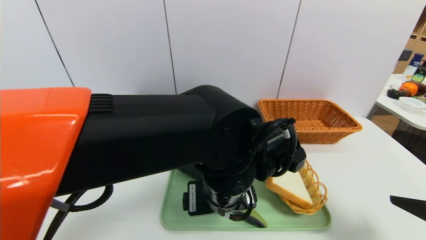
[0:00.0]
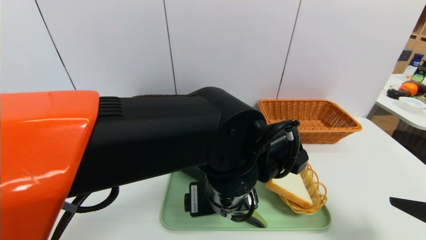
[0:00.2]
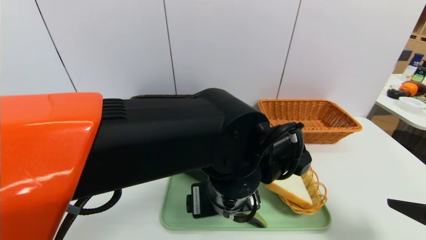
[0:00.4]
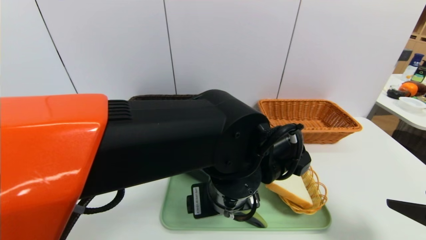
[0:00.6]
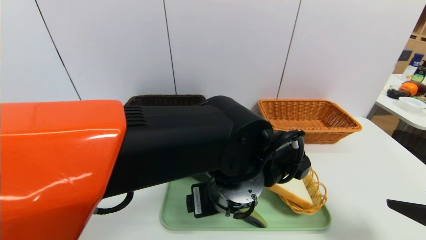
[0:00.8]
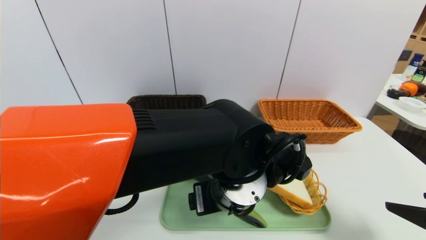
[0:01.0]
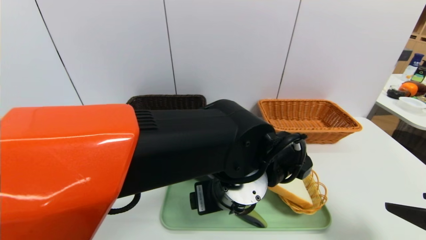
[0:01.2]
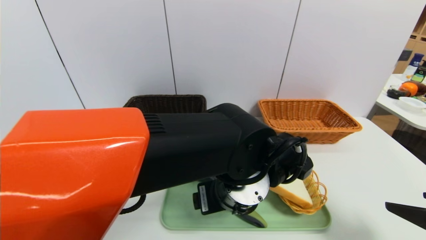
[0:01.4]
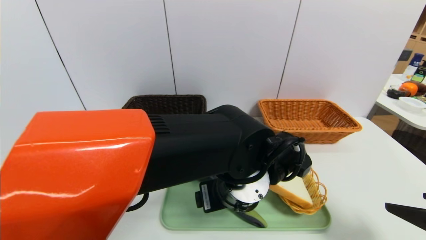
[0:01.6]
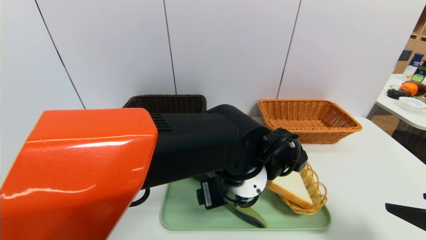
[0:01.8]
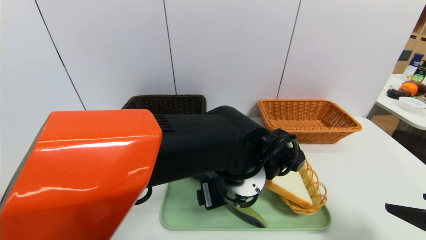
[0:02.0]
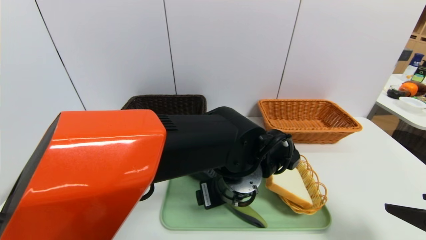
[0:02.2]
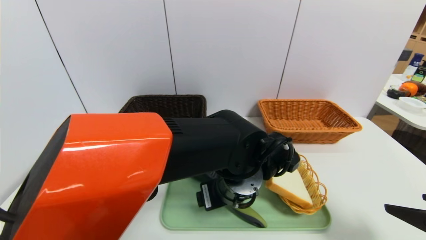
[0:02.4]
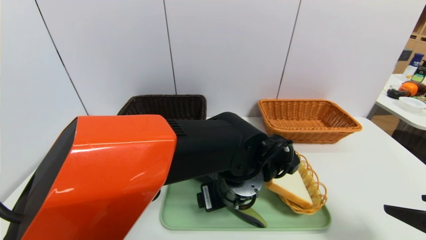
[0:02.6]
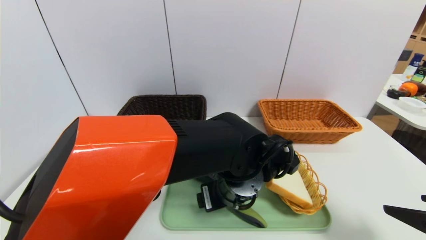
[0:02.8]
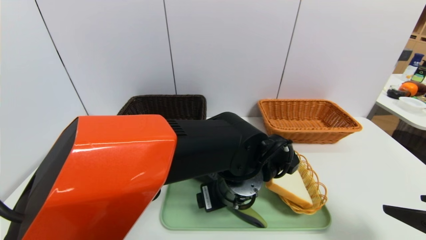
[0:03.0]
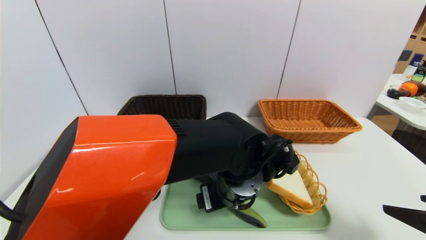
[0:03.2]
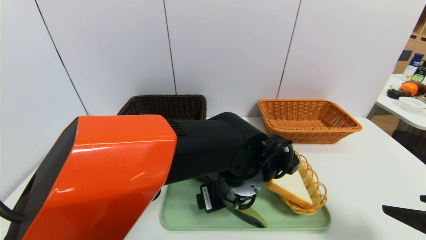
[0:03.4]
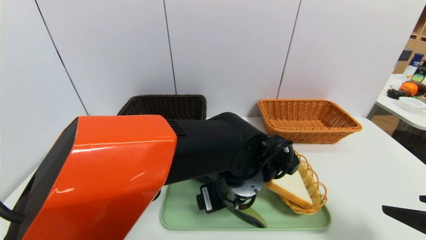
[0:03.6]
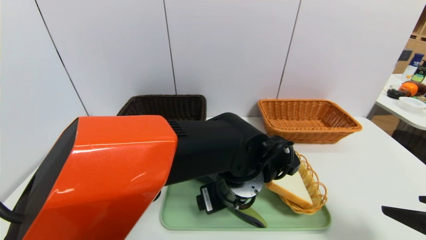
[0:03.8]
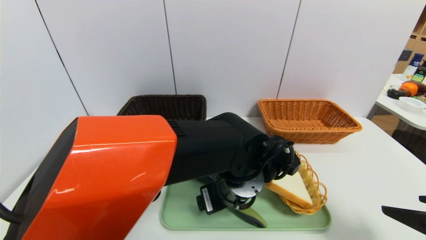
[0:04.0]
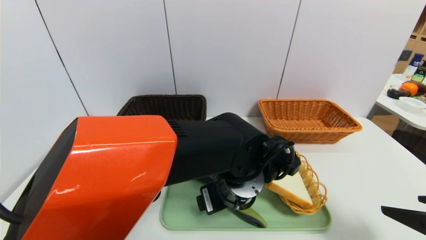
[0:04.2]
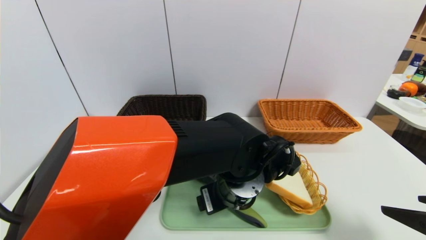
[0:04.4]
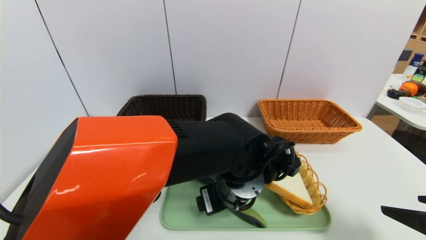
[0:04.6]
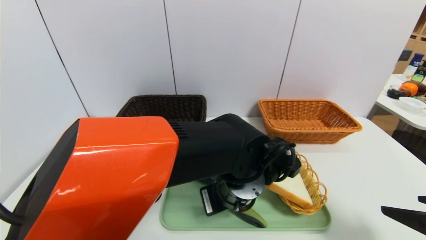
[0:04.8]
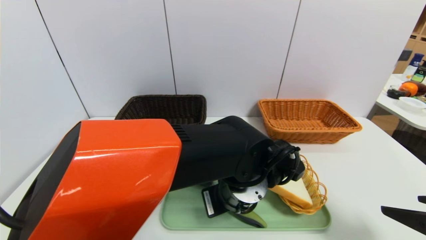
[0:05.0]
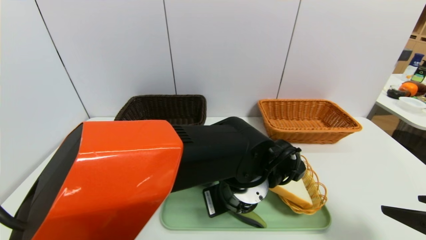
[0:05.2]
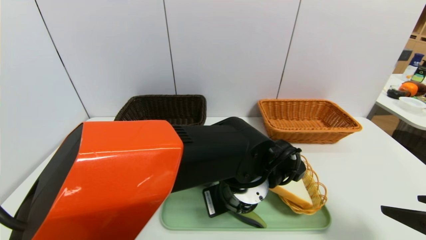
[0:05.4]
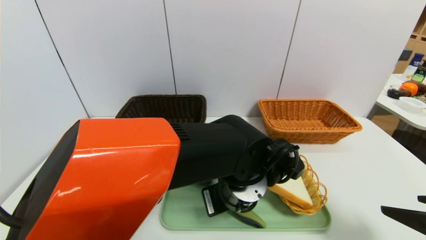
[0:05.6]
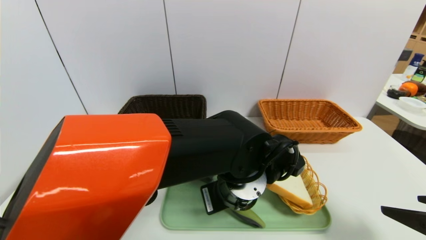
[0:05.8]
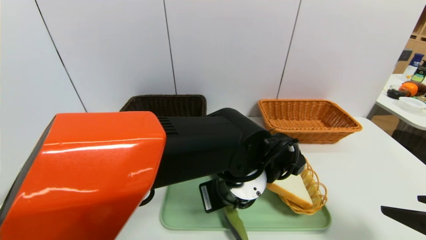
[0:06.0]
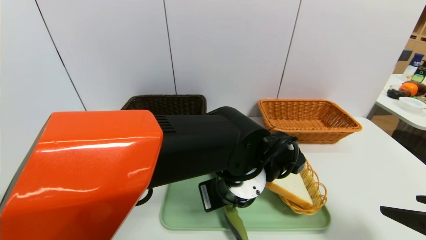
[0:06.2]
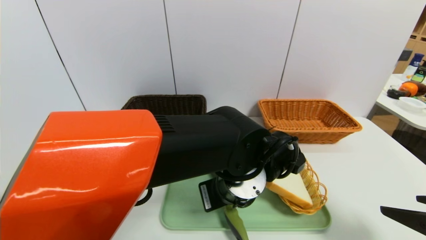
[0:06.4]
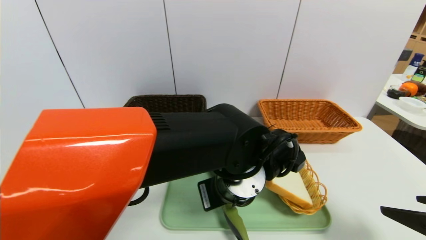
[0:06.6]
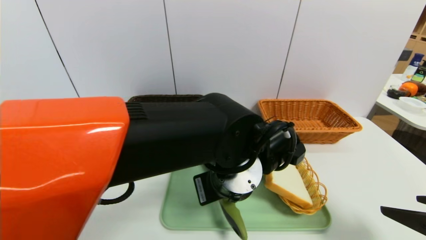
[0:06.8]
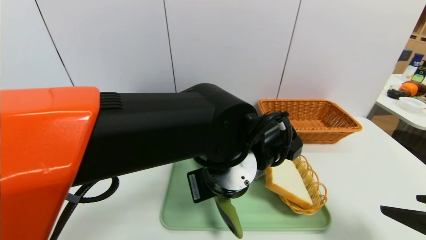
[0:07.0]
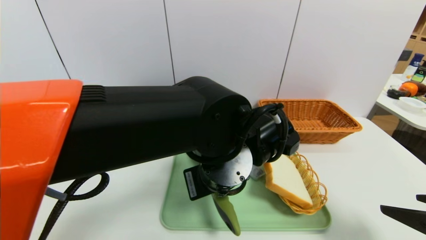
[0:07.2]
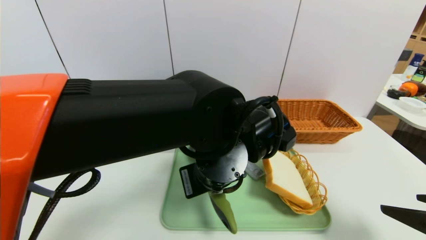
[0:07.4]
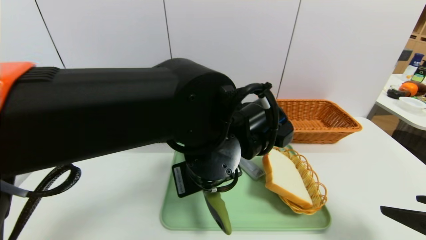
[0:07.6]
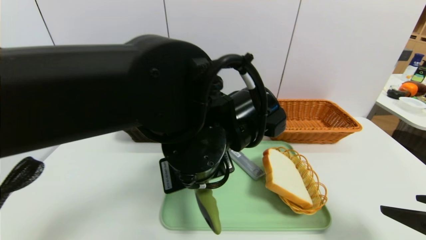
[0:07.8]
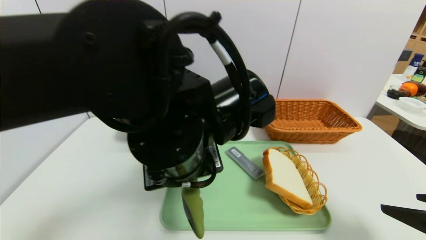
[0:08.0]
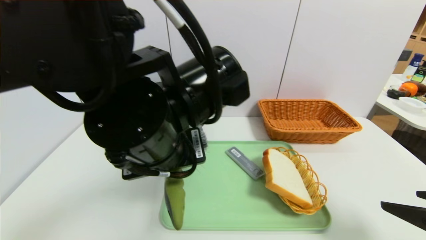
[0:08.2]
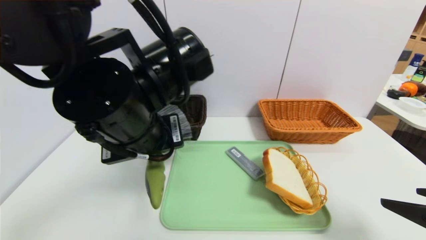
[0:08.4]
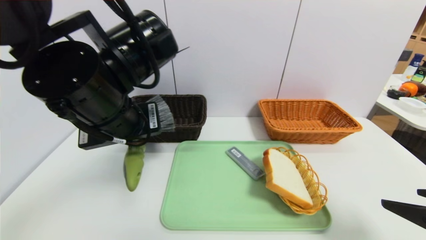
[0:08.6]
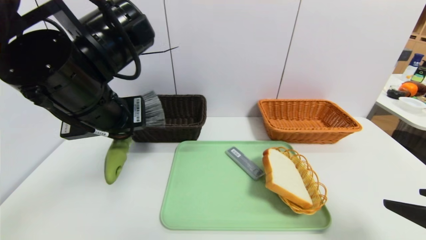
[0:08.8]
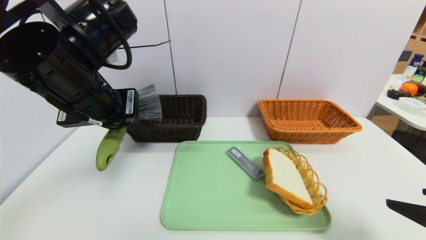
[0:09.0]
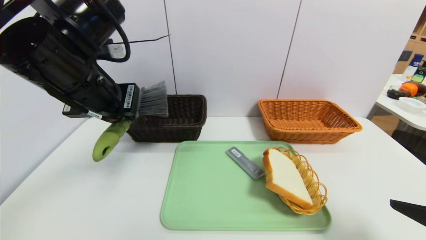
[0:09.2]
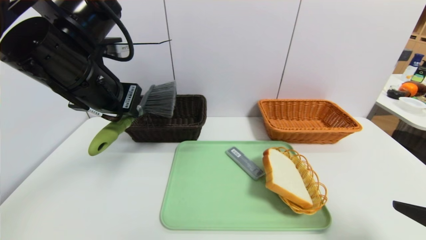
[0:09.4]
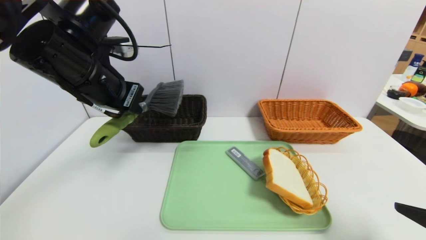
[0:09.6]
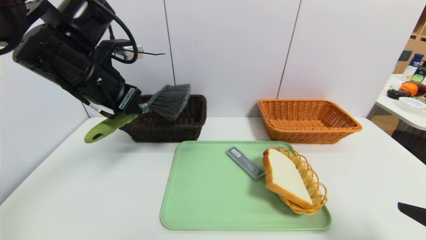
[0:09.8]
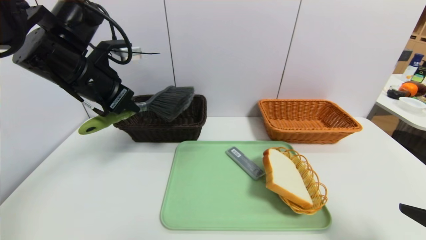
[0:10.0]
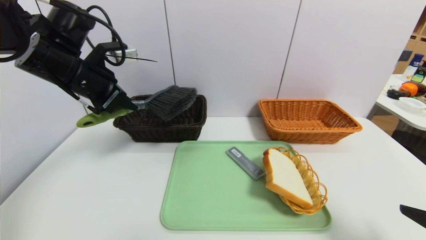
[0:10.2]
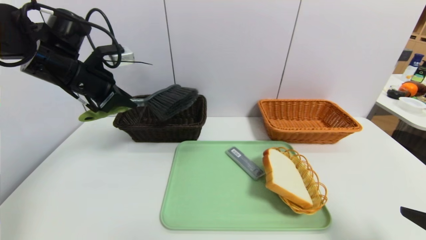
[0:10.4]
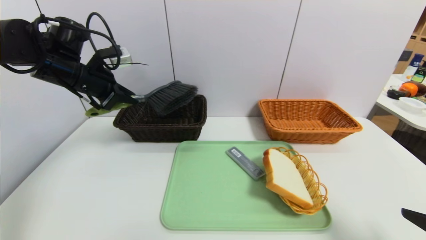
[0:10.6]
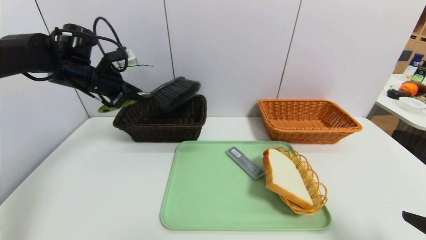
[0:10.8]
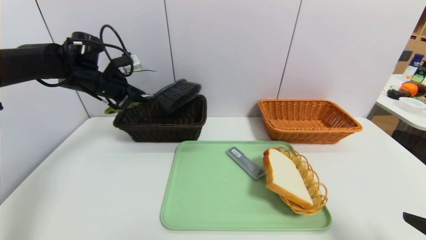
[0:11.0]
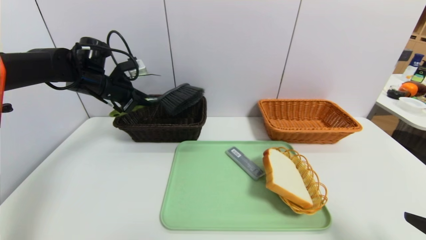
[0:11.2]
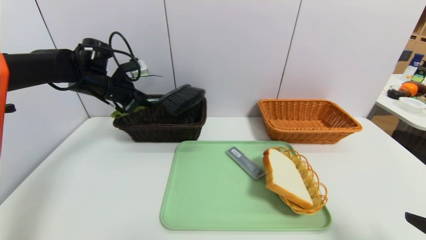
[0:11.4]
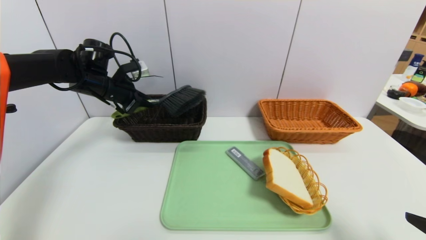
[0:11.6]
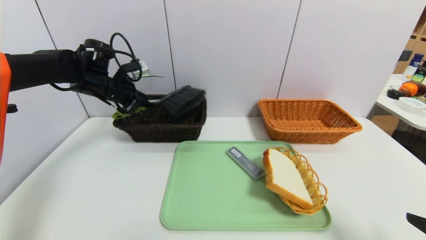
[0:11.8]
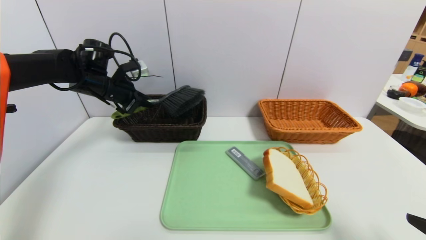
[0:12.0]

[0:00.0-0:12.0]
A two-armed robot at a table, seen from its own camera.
Task of the whole recording: place the food in the right basket with the right gripper, and place the non food items in the left basket with the left gripper.
0:01.6 to 0:03.0: The grippers make only small movements.
0:03.0 to 0:04.4: The two grippers keep their place.
0:04.4 to 0:06.0: The left gripper closes.
0:06.0 to 0:07.6: The left gripper shifts roughly 5 cm upward.
0:07.6 to 0:09.0: The left gripper moves to the left and upward, roughly 20 cm.
0:09.0 to 0:10.4: The left gripper goes approximately 15 cm forward and to the left.
0:10.4 to 0:12.0: The left gripper shifts about 10 cm forward and downward.

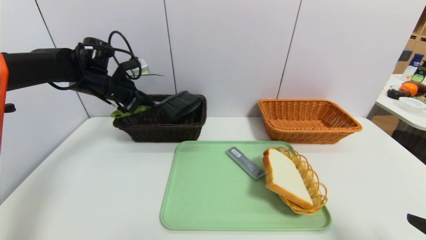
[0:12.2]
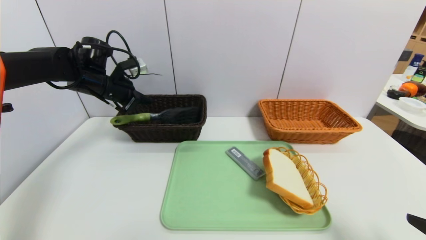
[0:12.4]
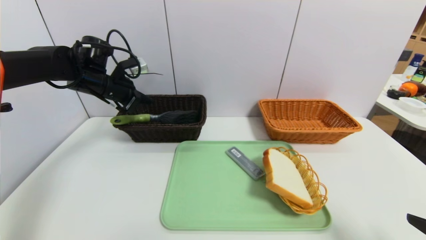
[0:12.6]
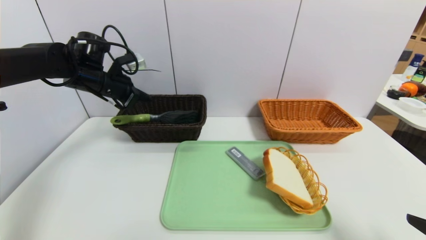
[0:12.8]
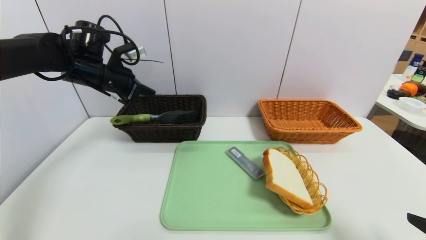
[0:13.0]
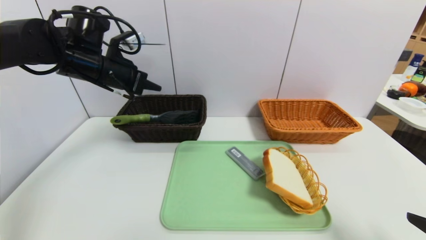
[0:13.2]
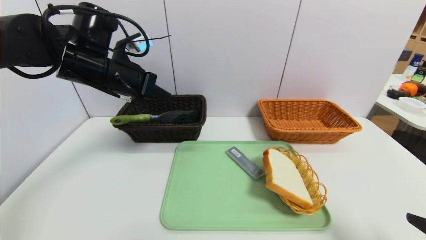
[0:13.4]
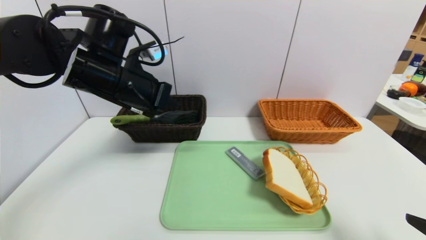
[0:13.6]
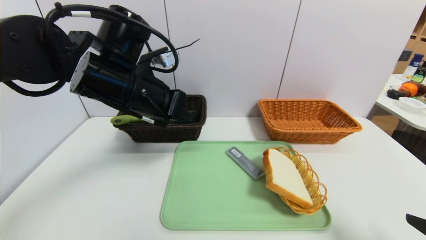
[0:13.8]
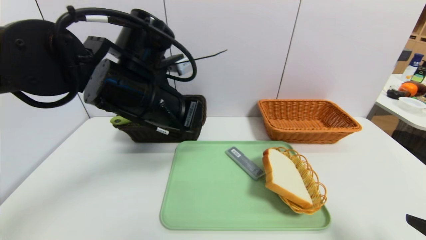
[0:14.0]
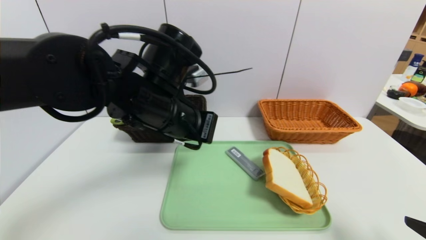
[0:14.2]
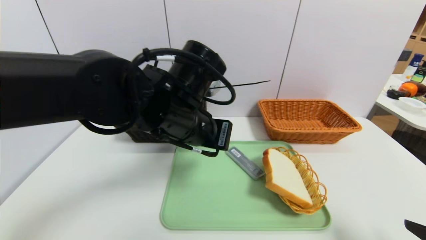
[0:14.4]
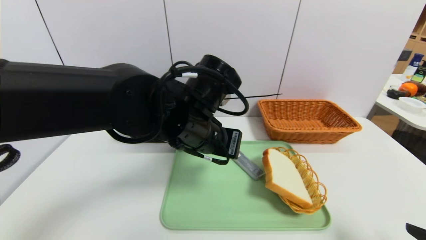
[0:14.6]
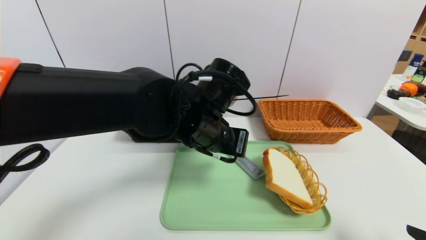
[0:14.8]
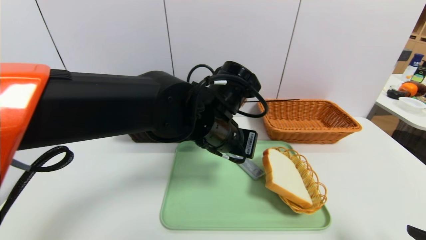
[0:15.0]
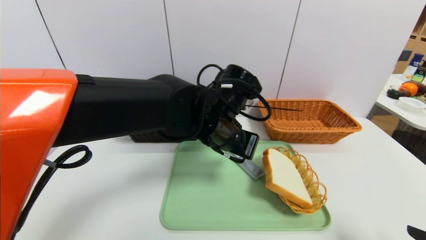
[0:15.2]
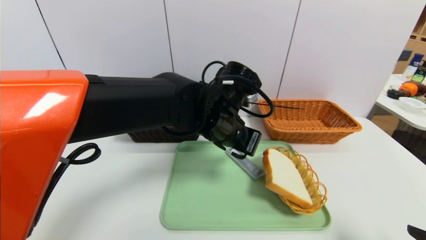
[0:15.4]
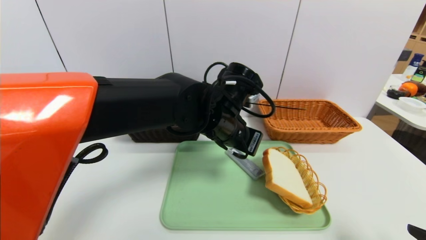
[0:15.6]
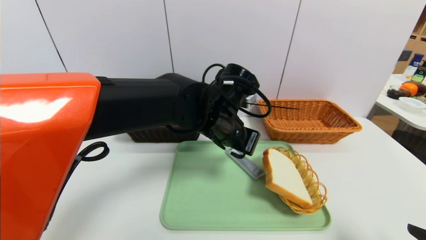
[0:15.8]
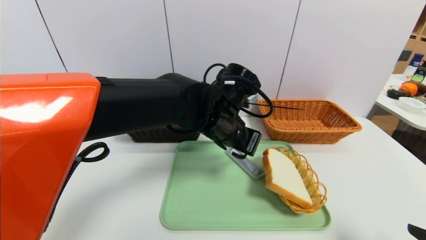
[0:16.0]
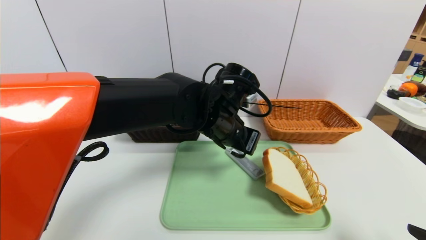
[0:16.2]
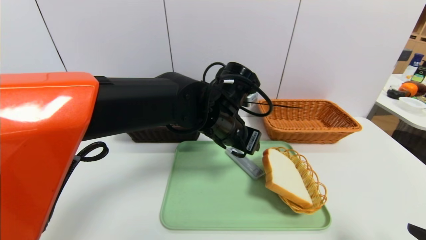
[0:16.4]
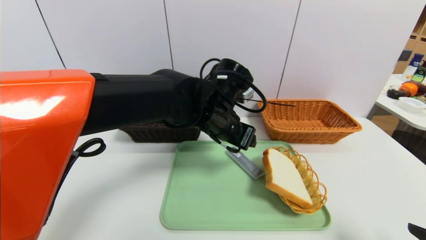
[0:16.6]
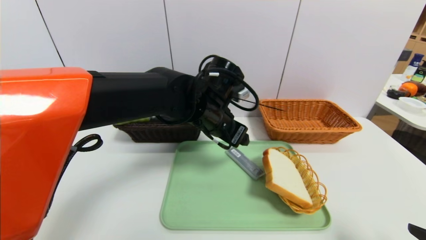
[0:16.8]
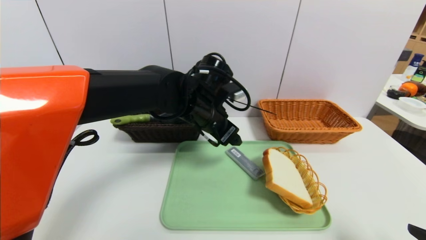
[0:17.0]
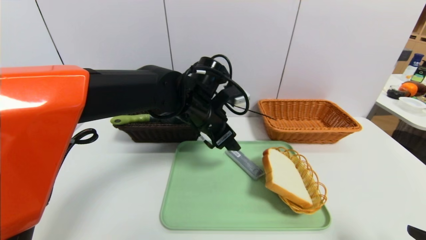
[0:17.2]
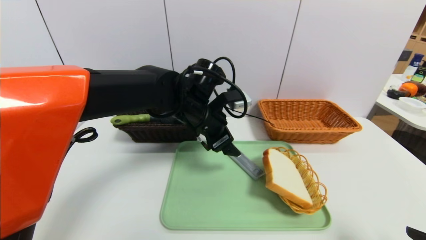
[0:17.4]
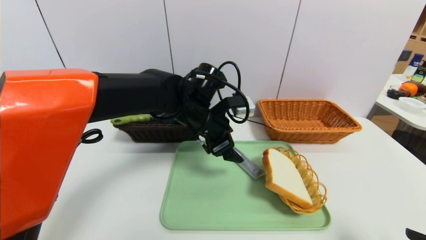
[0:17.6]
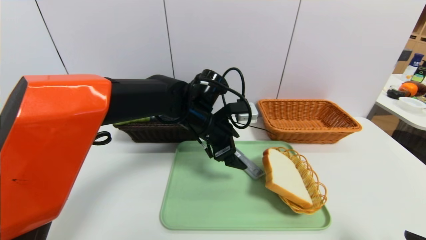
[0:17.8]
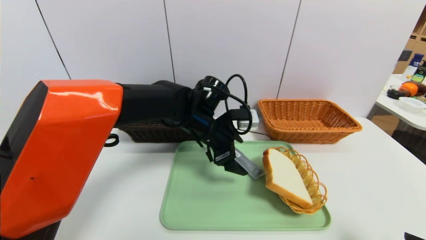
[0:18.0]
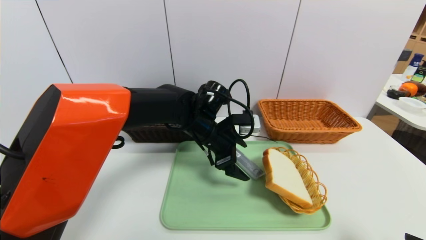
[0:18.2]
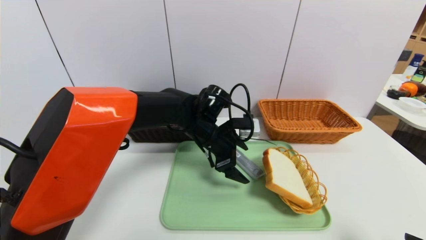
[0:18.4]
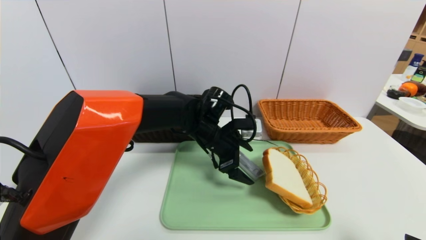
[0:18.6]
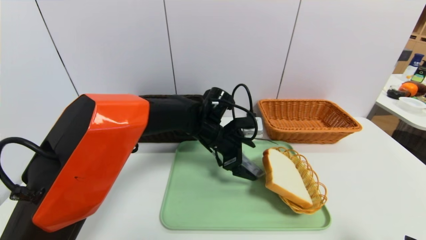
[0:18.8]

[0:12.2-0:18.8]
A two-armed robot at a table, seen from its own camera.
Task of the whole recording: place the food in the right basket with the right gripper, and place the non food items in the left basket with the left gripper.
0:12.2 to 0:13.8: The left gripper is displaced backward and to the right by approximately 20 cm.
0:13.8 to 0:15.4: The left gripper shifts approximately 15 cm to the right and downward.
0:15.4 to 0:17.2: The left gripper shifts by roughly 5 cm, and opens its fingers.
0:17.2 to 0:18.8: The left gripper shifts roughly 5 cm downward.
